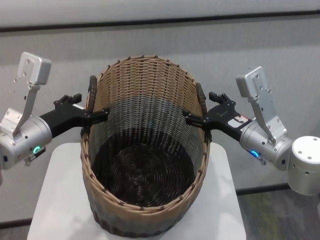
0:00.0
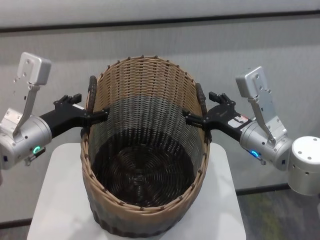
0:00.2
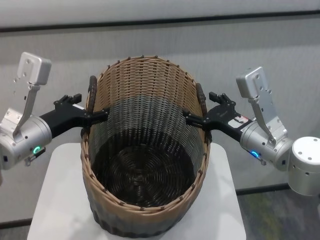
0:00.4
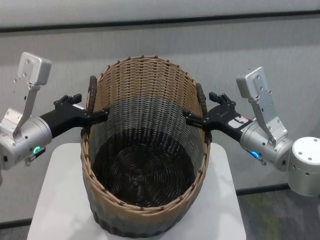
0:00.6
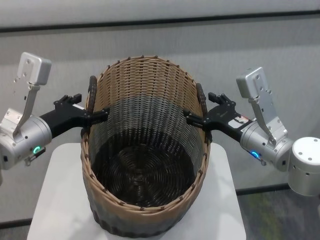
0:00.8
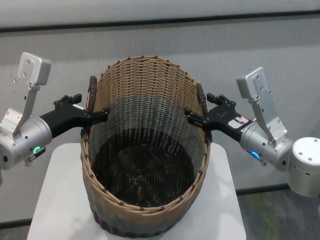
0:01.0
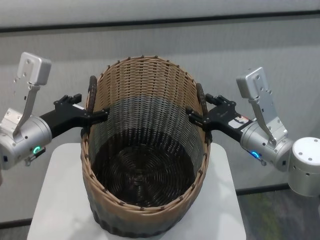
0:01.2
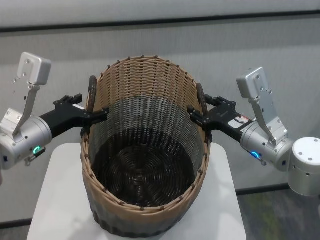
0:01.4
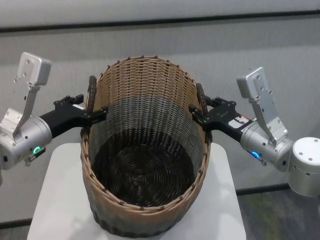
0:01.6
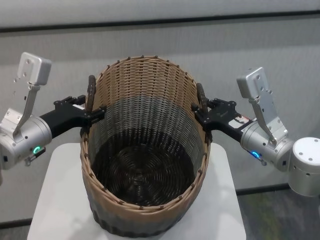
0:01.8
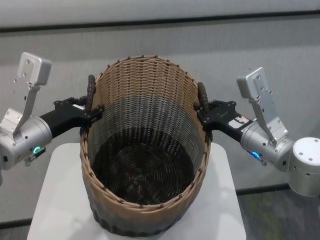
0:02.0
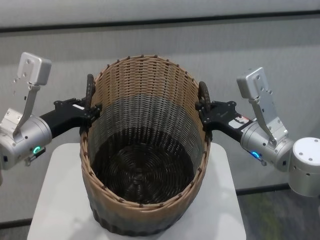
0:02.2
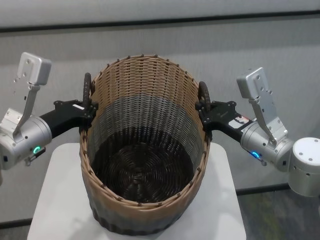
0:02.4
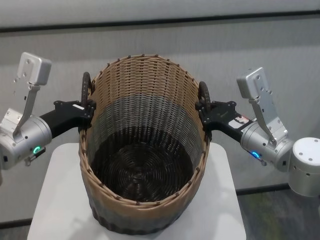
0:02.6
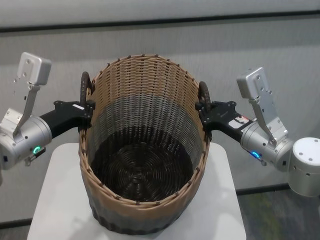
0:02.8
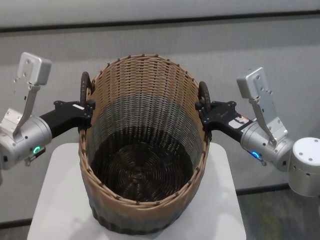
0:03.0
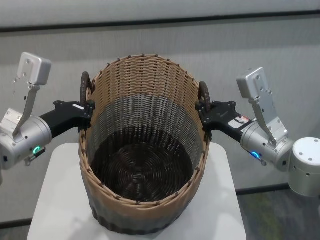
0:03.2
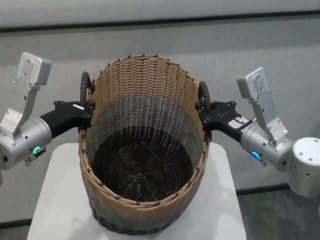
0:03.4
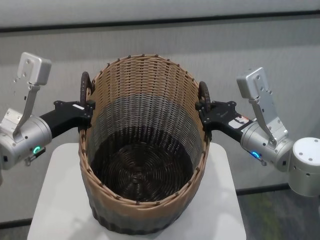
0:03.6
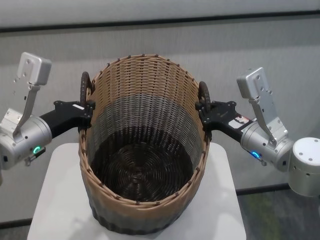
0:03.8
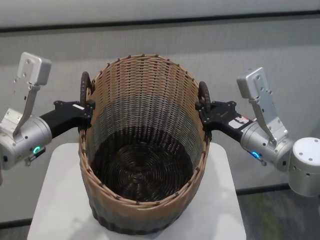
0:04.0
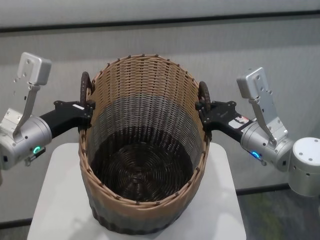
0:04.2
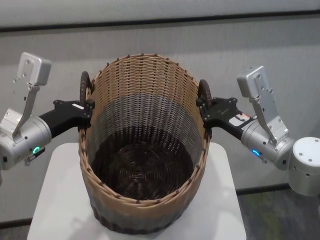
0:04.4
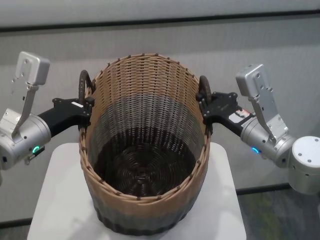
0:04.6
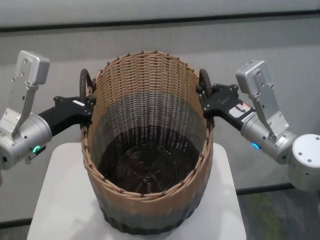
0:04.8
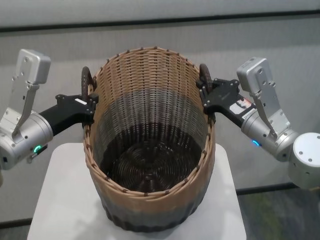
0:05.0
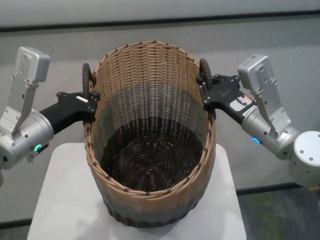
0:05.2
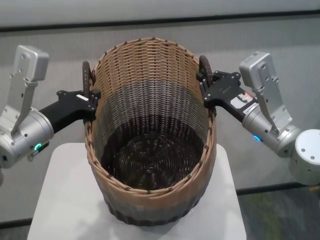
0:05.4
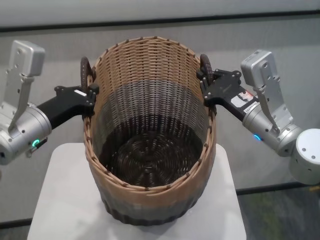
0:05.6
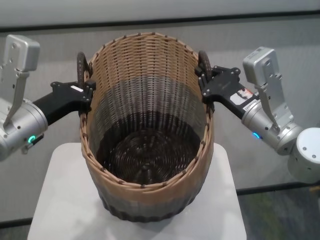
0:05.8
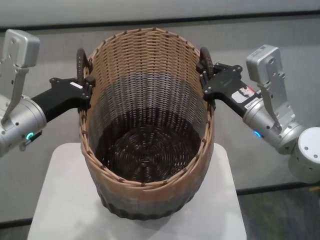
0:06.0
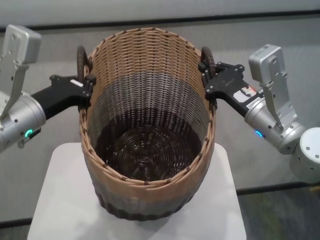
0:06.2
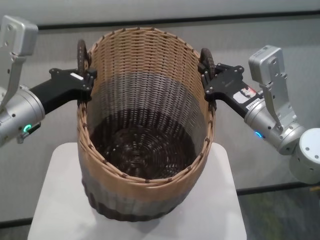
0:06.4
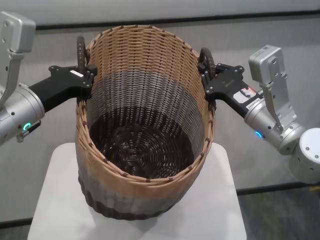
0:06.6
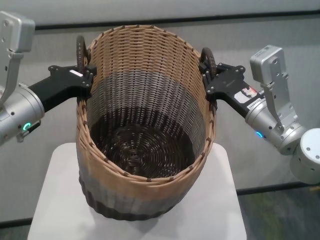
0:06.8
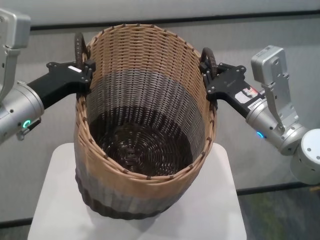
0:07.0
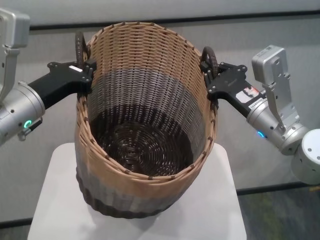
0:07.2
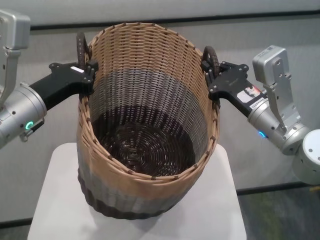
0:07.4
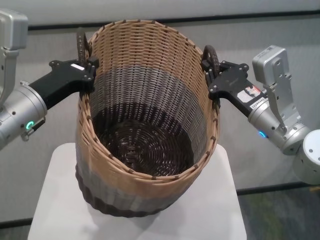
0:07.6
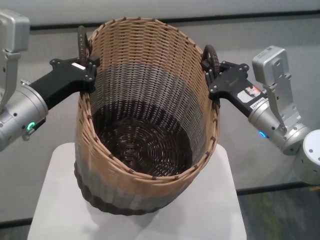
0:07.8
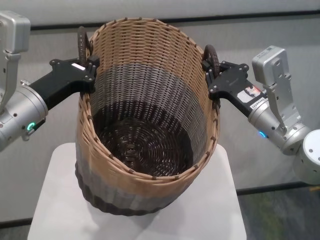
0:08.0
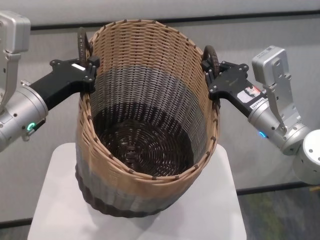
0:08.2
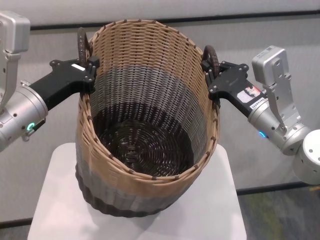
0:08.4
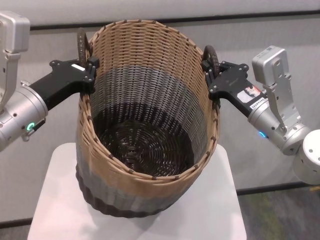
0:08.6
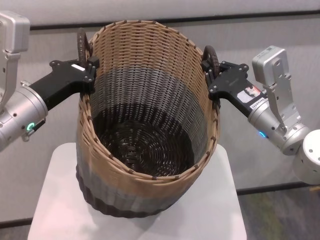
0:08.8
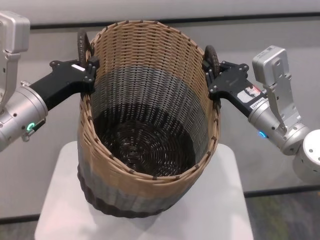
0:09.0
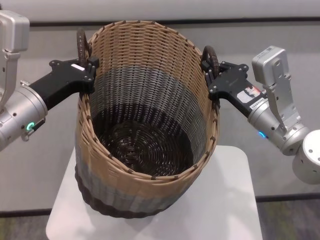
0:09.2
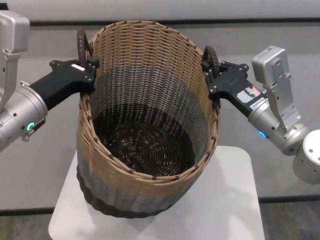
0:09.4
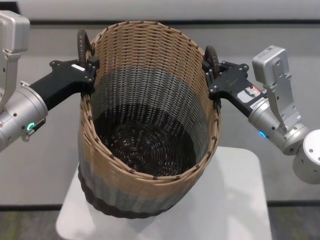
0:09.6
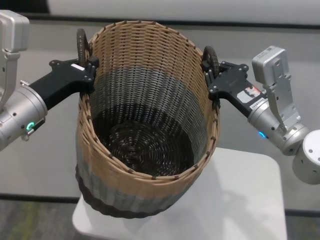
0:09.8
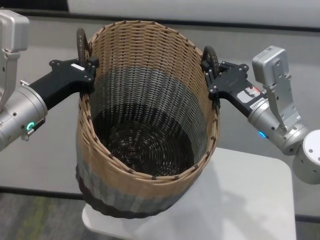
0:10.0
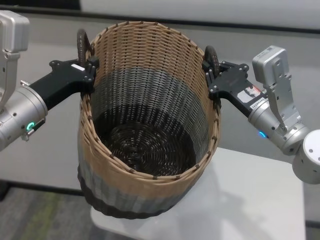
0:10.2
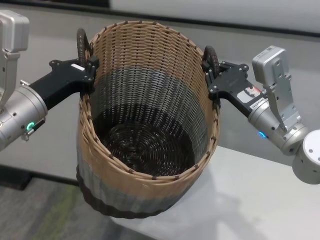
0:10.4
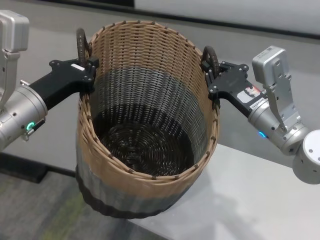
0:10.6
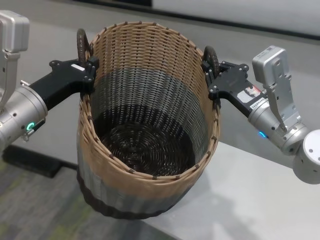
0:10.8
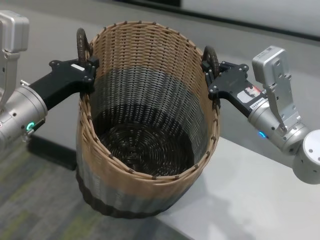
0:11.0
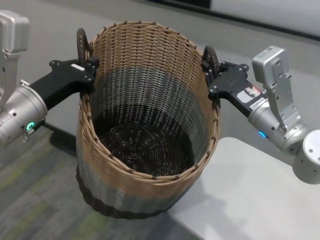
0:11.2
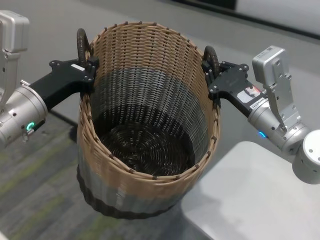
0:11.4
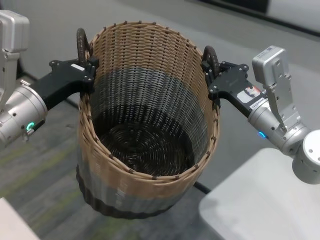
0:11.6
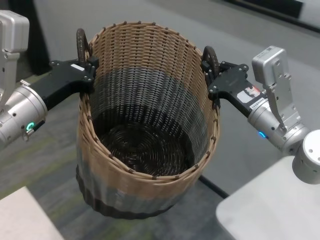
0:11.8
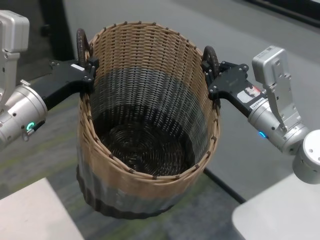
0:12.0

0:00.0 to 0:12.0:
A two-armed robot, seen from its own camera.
Task of the whole recording: carry the clothes basket in coordination with both hands.
Step, 0:00.0 to 0:04.0: Grasp the basket with both grippers.

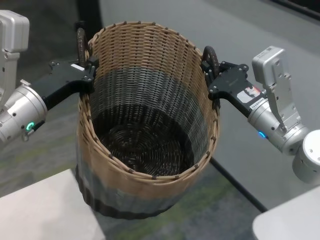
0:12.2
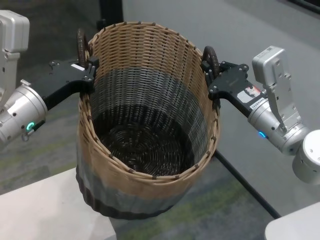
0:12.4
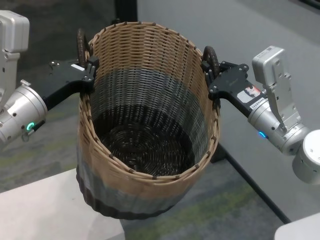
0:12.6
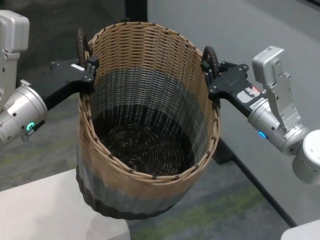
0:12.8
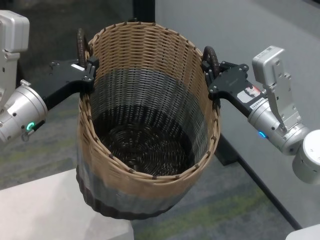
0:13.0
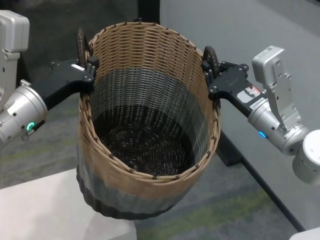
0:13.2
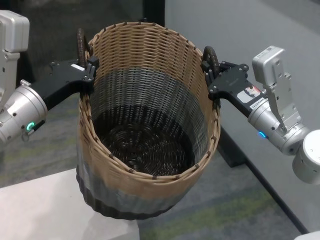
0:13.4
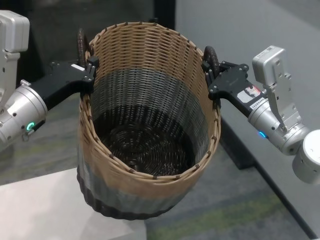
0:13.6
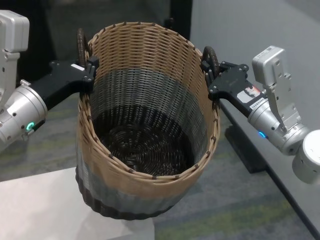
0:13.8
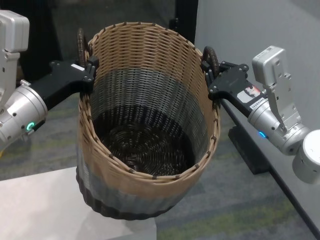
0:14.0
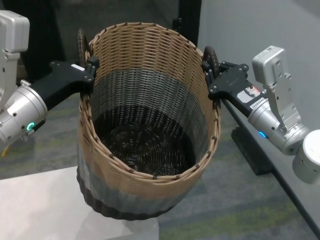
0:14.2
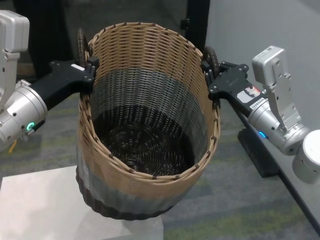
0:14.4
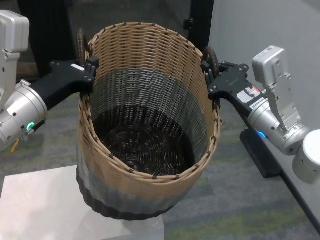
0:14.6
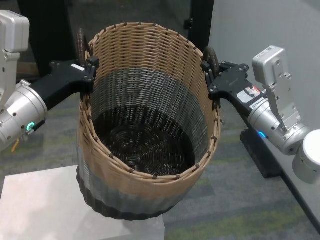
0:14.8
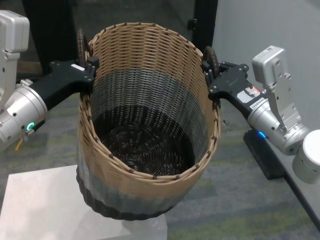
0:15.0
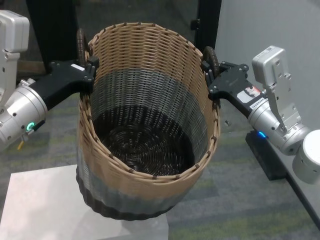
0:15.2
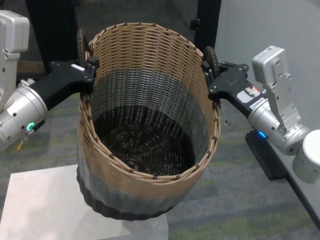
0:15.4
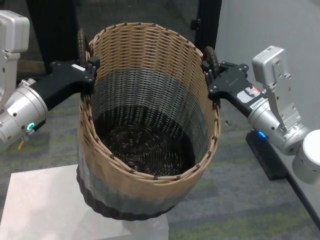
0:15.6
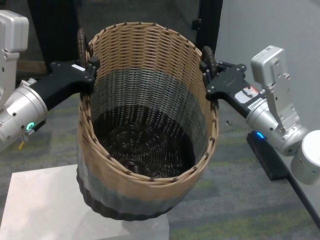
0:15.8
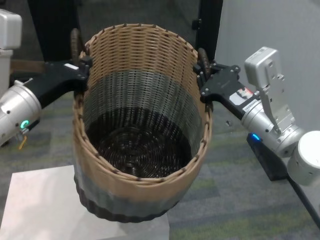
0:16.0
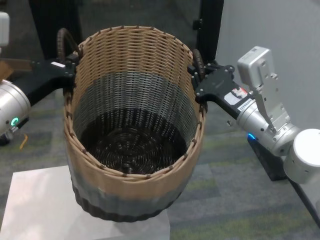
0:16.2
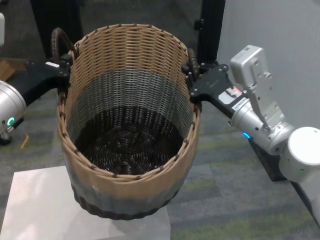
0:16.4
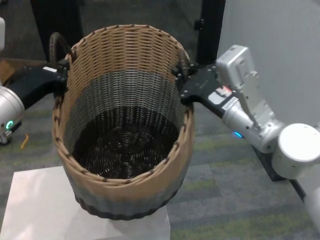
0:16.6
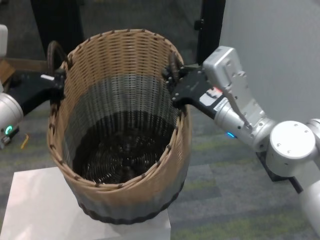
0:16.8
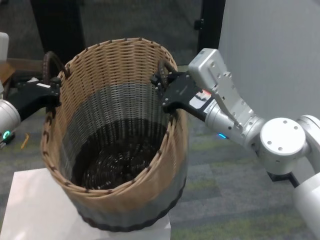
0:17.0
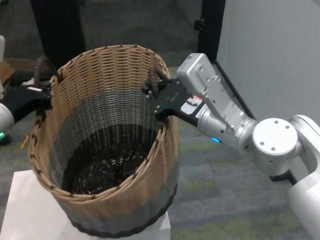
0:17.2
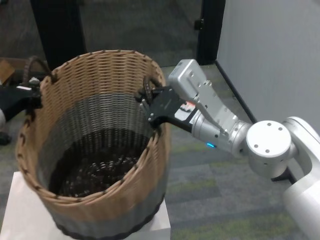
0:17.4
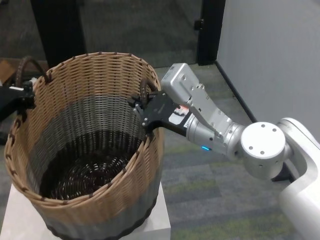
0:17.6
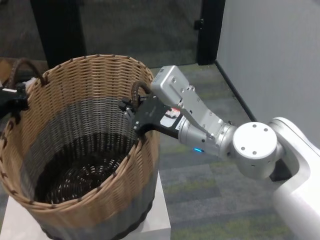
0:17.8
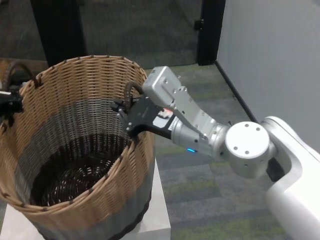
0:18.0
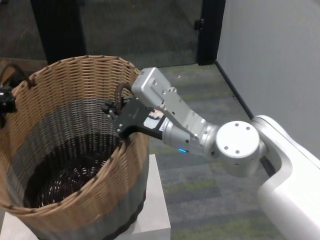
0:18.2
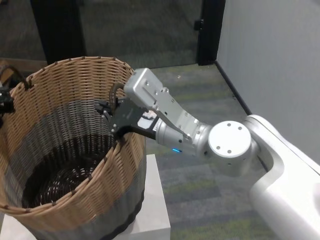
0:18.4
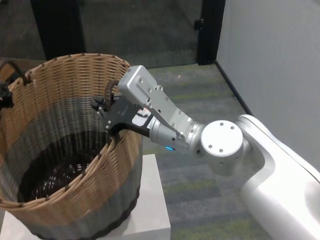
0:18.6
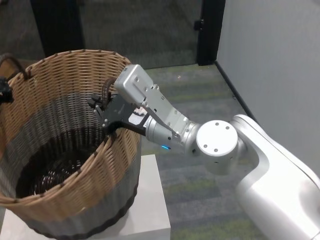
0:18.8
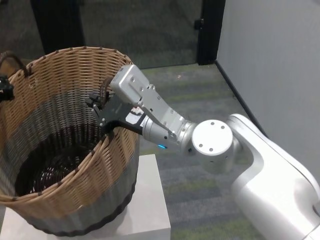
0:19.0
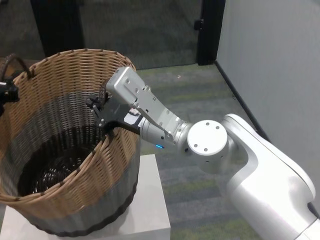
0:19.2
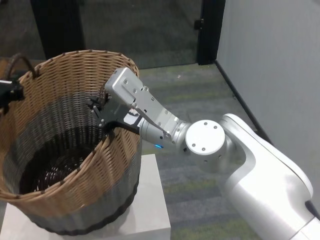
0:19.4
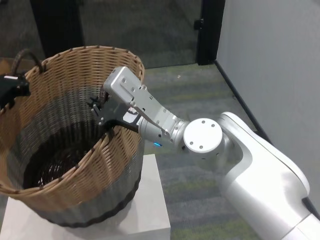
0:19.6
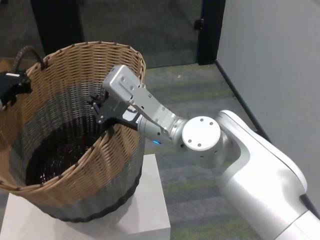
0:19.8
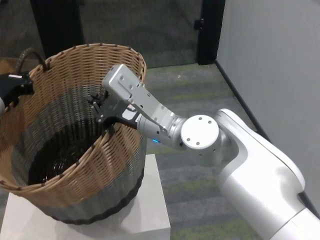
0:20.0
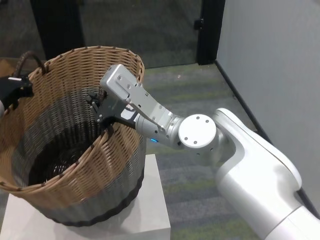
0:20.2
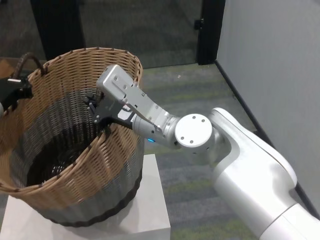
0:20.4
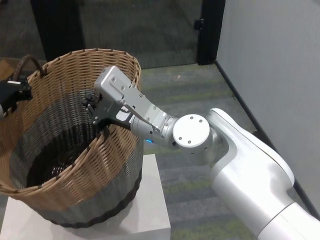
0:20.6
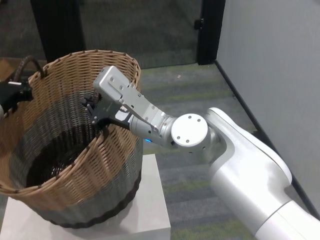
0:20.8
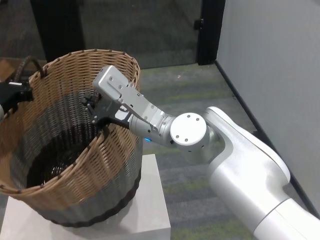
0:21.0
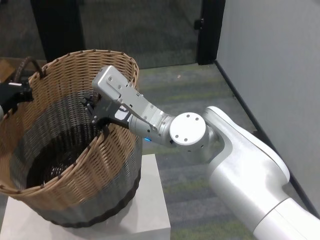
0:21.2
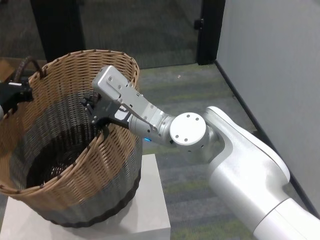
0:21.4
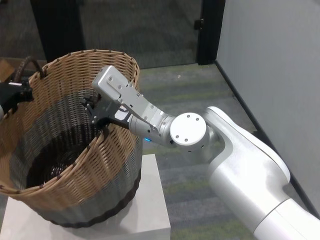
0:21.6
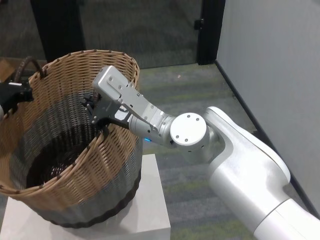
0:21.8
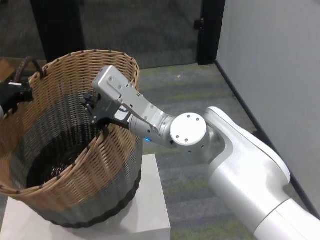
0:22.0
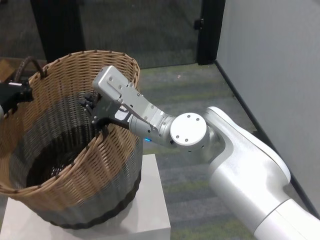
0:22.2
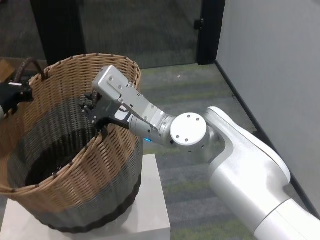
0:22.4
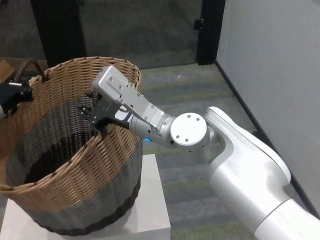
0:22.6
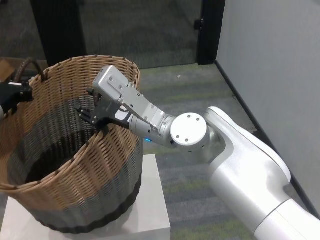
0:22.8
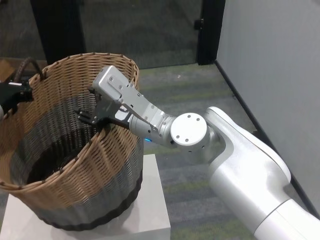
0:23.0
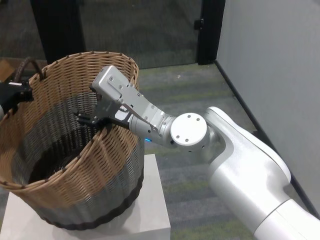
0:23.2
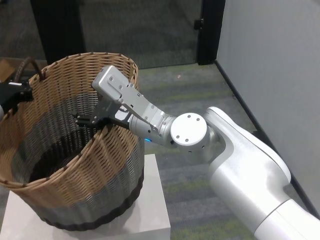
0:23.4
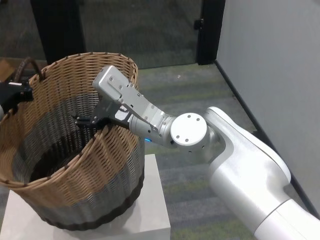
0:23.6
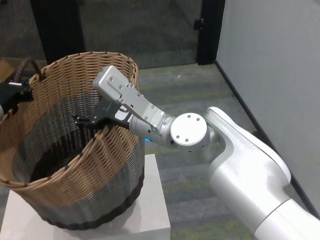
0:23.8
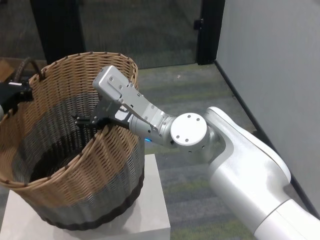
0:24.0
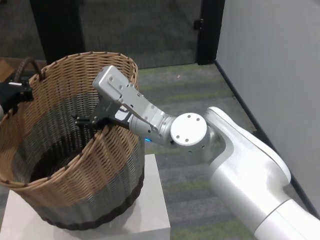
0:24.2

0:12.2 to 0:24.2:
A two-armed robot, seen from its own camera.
Task of the whole recording: carry the clothes basket in coordination with both hands.
Step, 0:12.2 to 0:15.6: Move the basket above the other table.
